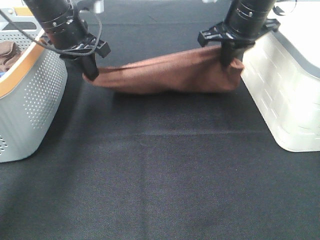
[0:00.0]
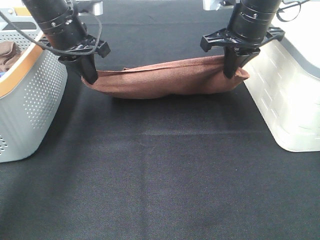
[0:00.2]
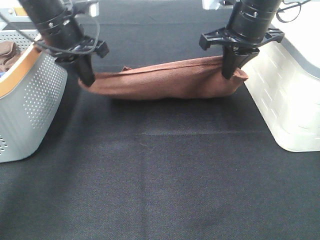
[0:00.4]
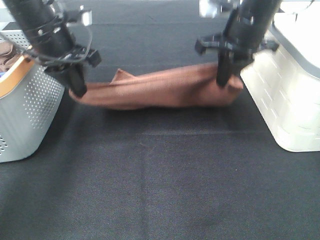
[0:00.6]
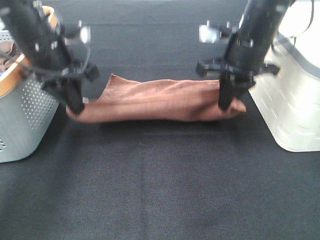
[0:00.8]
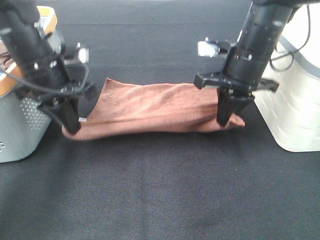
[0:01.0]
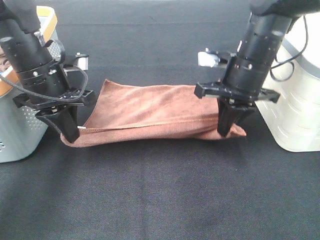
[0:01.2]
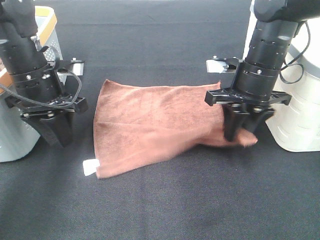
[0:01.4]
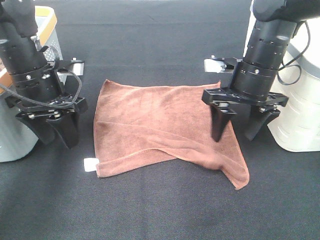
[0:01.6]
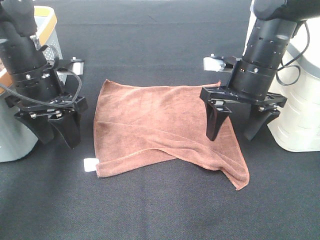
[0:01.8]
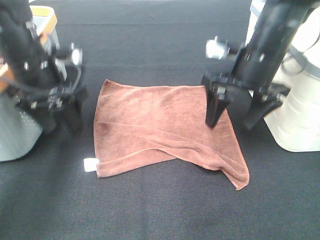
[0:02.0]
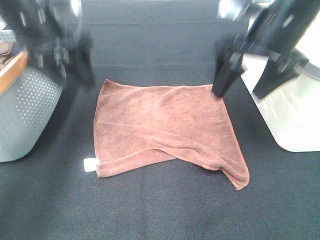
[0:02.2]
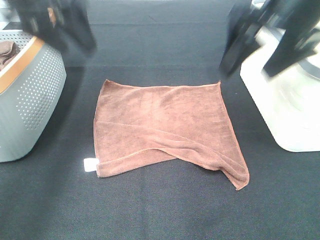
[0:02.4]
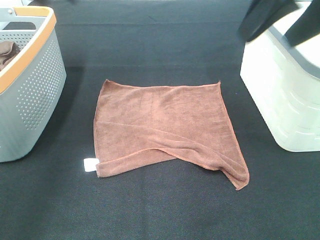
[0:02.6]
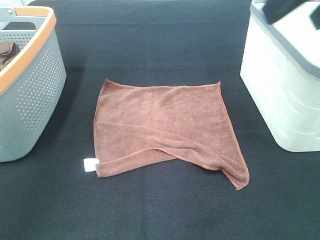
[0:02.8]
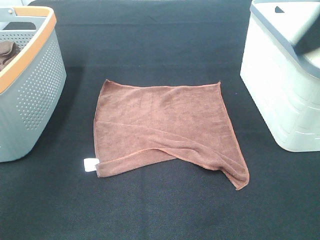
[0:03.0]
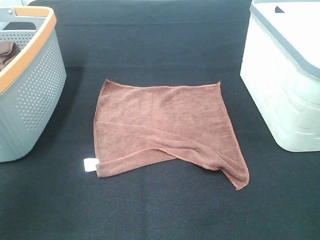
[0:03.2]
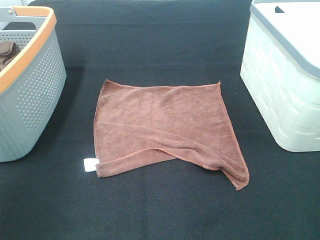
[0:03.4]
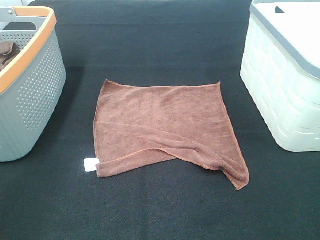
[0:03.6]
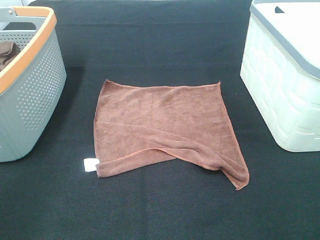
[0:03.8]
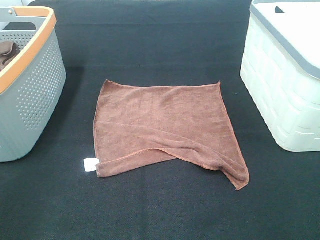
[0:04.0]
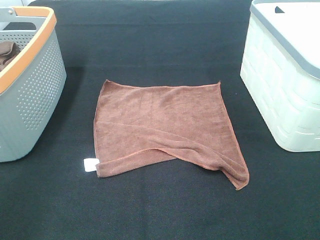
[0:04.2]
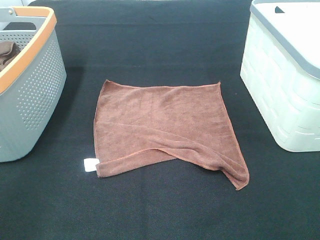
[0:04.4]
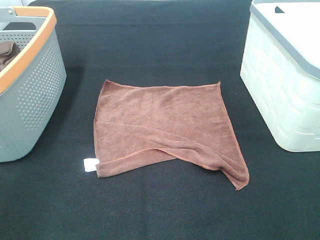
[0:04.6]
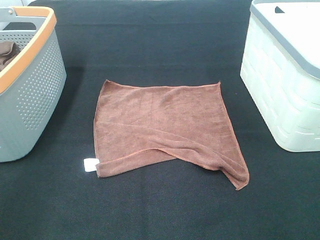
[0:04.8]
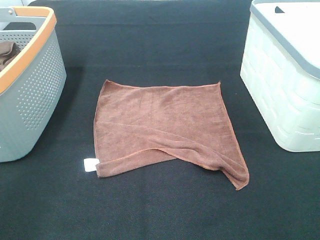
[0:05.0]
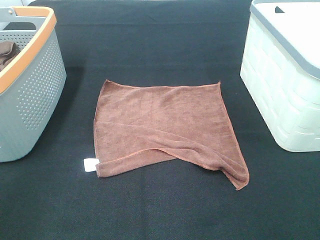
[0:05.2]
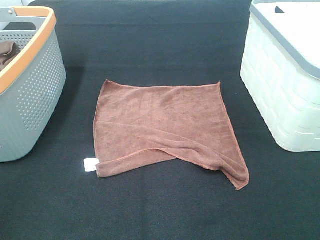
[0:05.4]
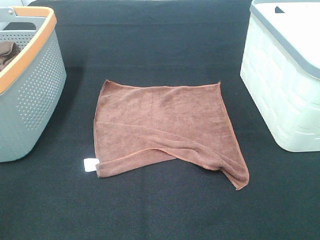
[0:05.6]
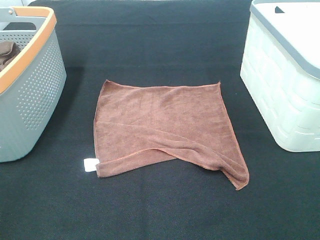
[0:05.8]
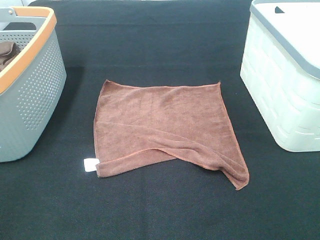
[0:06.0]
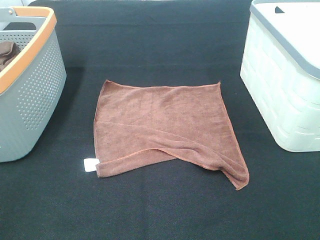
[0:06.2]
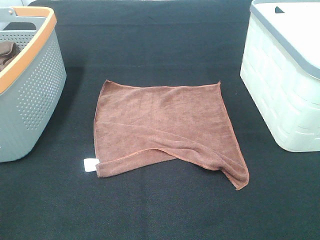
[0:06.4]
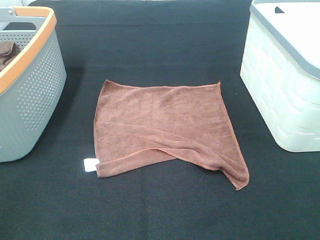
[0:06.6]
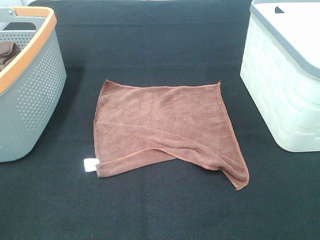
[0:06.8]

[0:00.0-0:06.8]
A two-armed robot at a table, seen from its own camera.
Task of the whole recording: Remove the towel and place it.
0:00.0 to 0:01.4: The left gripper moves backward and downward, approximately 10 cm, and opens up, while the right gripper is displaced downward and backward by roughly 10 cm, and opens up.
0:01.4 to 0:02.8: The right gripper goes about 25 cm upward and backward, and opens. Meanwhile the left gripper travels upward by approximately 25 cm, and opens up.
0:02.8 to 0:04.0: The right gripper travels backward, downward and to the right by approximately 20 cm.

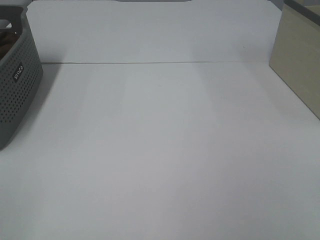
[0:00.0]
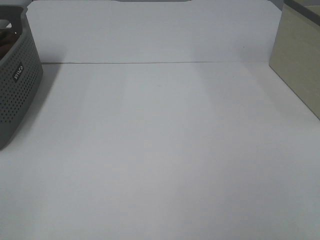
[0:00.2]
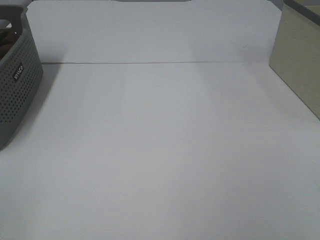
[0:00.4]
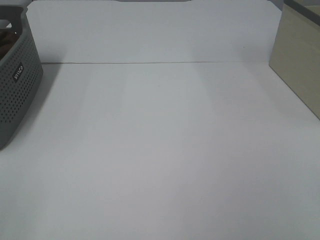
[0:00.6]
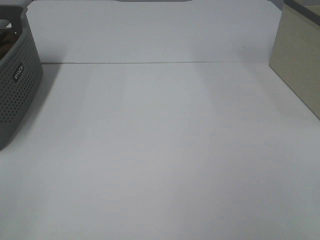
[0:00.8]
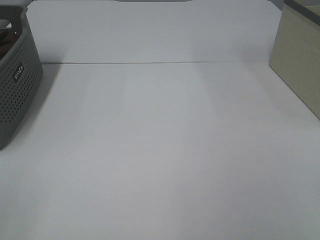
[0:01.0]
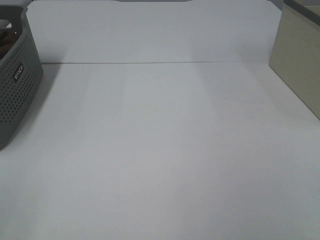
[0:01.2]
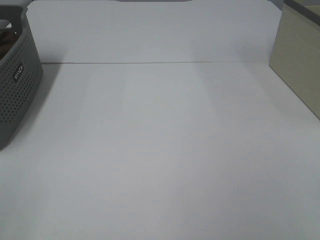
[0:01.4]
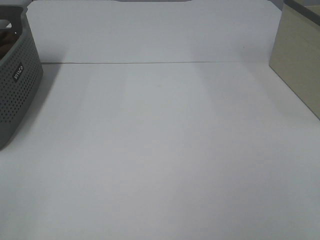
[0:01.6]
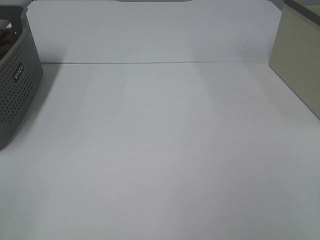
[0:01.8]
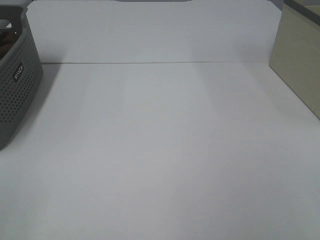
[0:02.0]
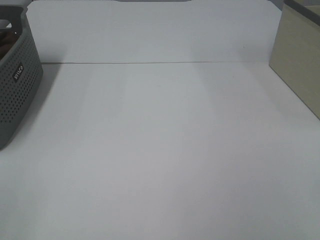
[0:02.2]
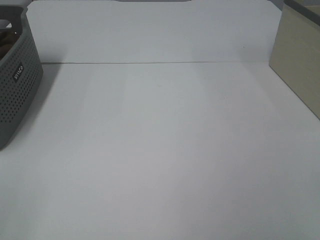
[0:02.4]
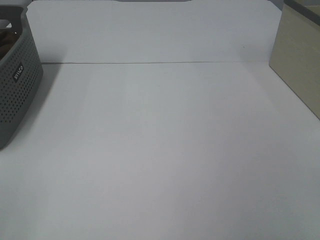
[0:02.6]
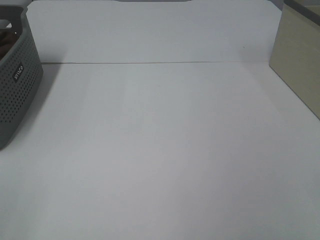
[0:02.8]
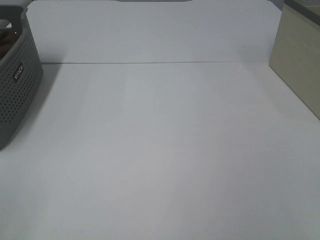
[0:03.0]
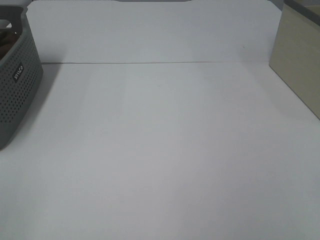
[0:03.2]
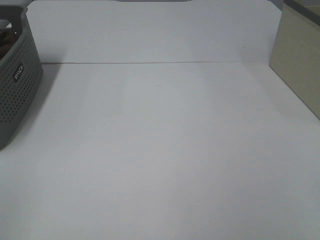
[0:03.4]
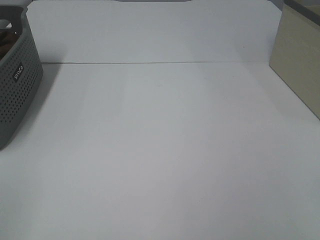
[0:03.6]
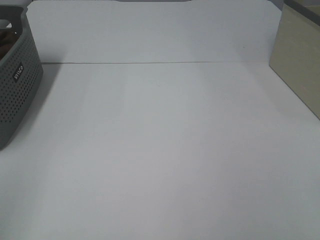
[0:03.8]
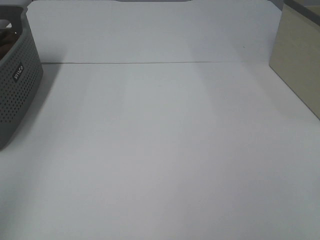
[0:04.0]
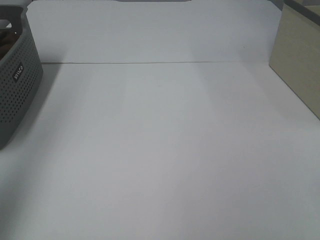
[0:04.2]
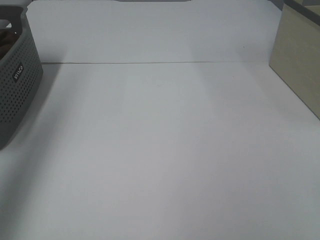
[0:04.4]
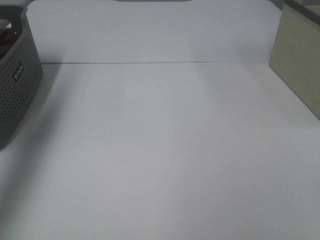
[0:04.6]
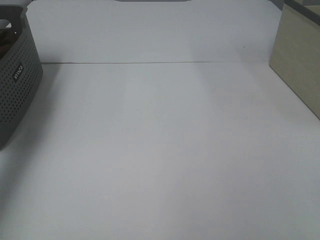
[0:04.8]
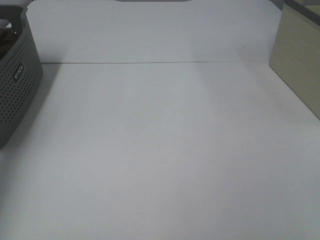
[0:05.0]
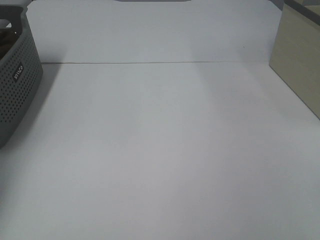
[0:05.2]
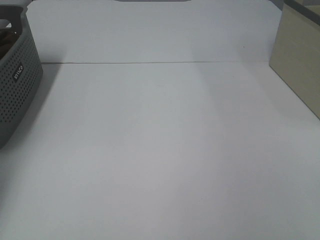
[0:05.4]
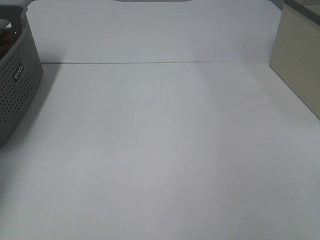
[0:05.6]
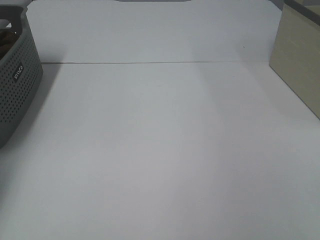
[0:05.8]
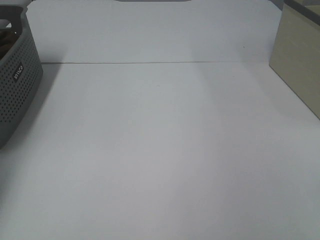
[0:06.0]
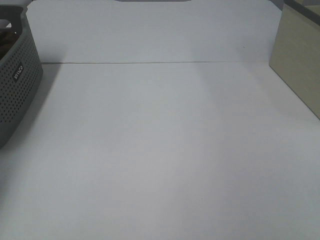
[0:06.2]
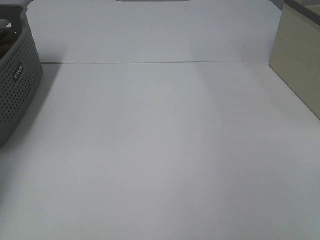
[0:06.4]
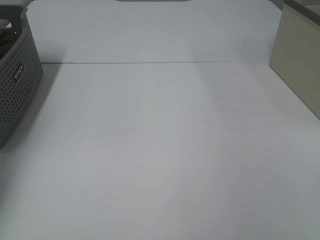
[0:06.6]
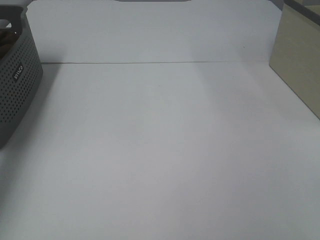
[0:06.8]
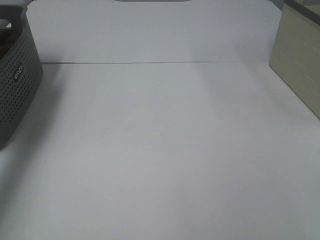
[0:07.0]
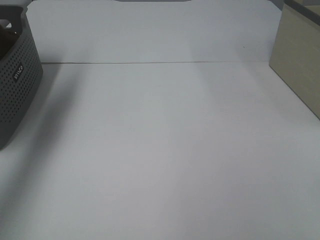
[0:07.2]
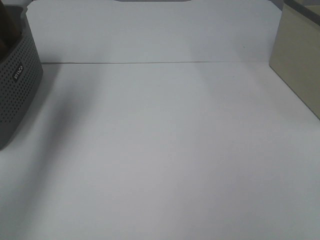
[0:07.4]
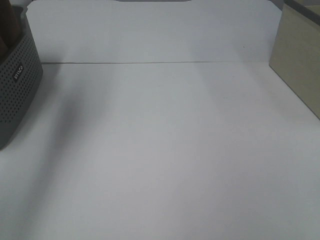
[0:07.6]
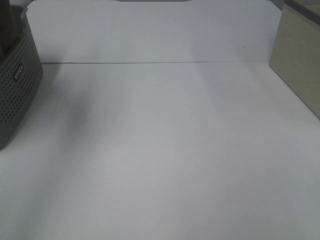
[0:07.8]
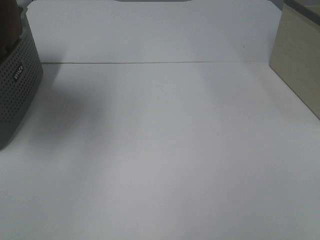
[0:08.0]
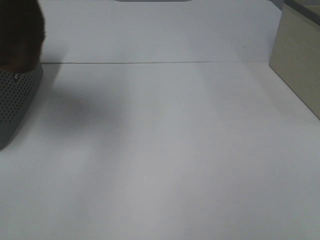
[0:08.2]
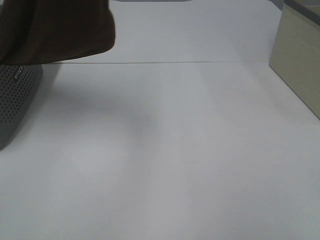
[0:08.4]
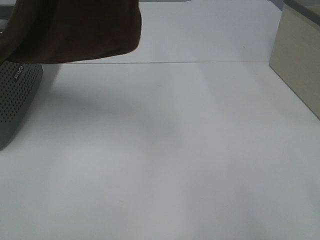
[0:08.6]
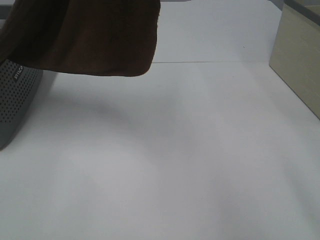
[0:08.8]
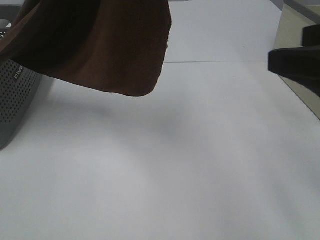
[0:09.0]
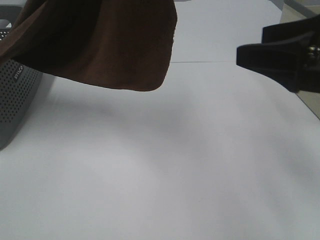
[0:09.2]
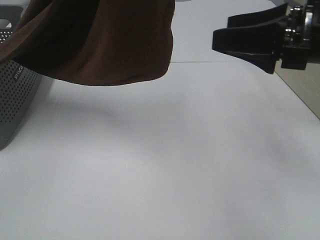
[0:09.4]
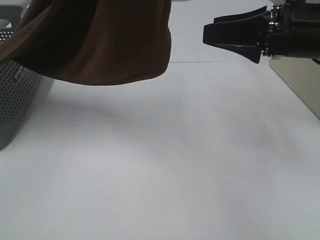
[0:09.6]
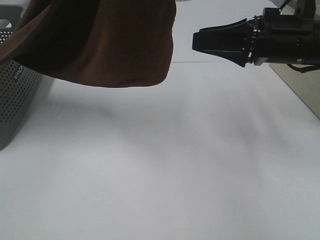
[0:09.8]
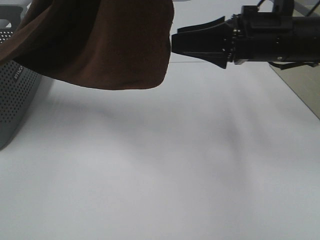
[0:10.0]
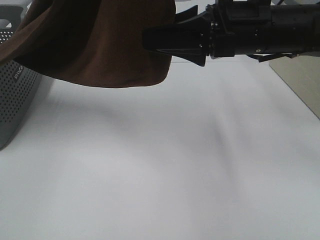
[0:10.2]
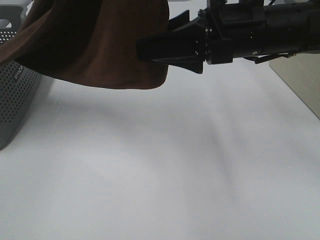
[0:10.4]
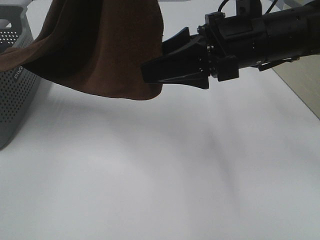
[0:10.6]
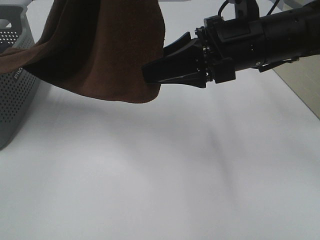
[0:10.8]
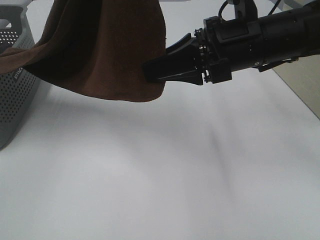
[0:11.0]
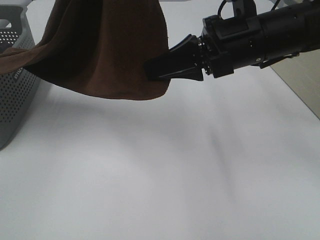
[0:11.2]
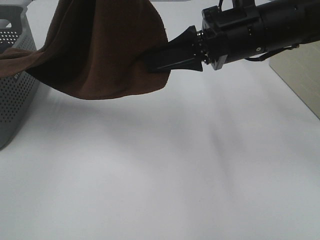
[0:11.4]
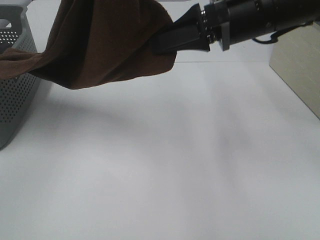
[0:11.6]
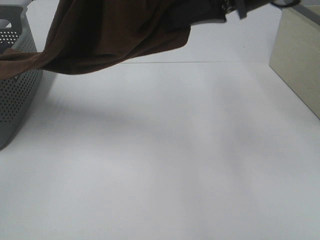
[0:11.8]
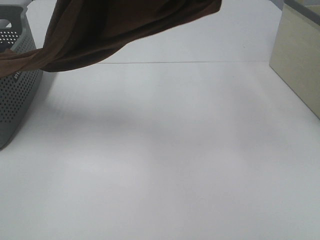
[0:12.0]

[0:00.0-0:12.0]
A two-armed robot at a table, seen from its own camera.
Task of the whole recording: Remove the towel and place it.
Step, 0:08.0 to 0:11.0: Right hand: grab a corner of the brown towel and straighten it.
0:00.0 to 0:03.0: Both grippers stay put.
0:03.0 to 0:04.4: The left gripper heads forward and upward, covering about 30 cm.
0:04.4 to 0:06.0: The left gripper travels downward, forward and to the left by roughly 35 cm, and closes up.
0:06.0 to 0:07.6: The left gripper travels upward, to the right and backward by some 30 cm.
0:07.6 to 0:09.0: The left gripper goes approximately 20 cm to the right and backward. The right gripper moves forward, roughly 15 cm.
0:09.0 to 0:10.4: The right gripper heads forward and to the left, covering about 20 cm.
0:10.4 to 0:12.0: The right gripper moves upward, some 15 cm, and closes.

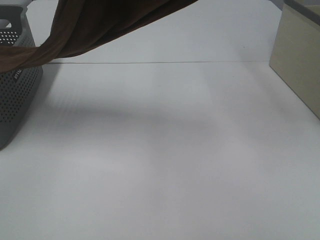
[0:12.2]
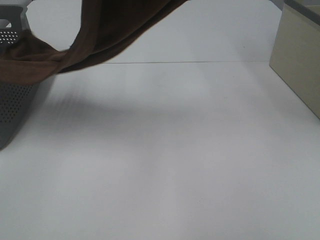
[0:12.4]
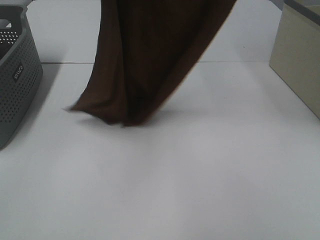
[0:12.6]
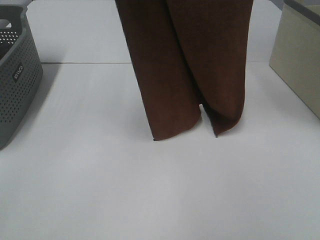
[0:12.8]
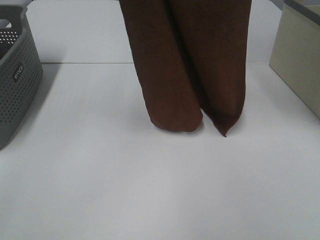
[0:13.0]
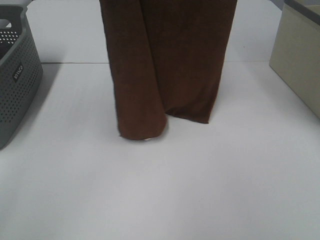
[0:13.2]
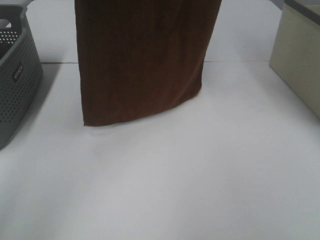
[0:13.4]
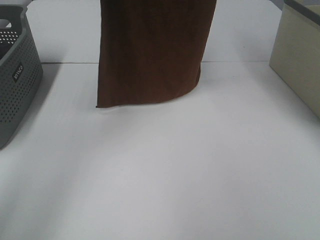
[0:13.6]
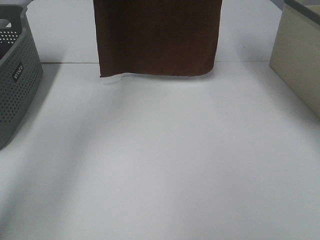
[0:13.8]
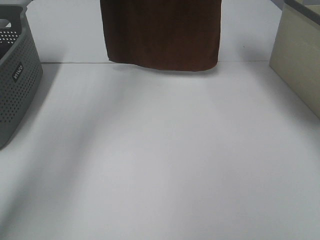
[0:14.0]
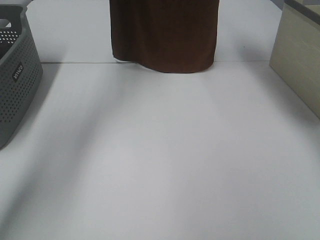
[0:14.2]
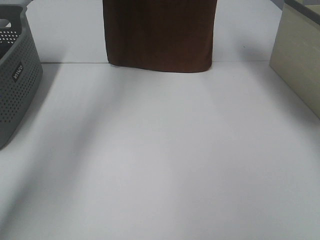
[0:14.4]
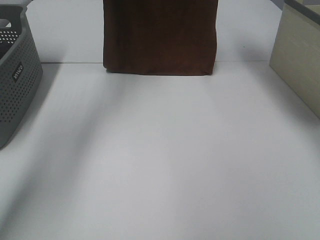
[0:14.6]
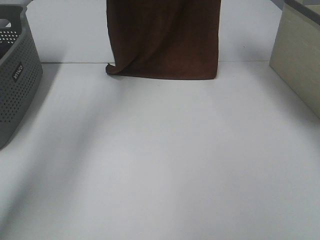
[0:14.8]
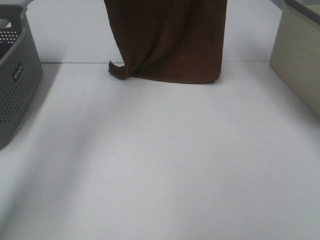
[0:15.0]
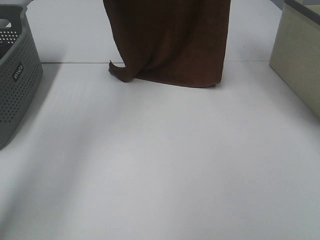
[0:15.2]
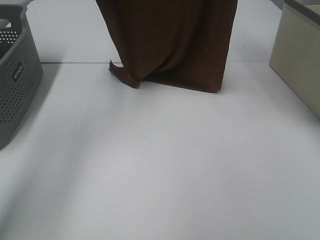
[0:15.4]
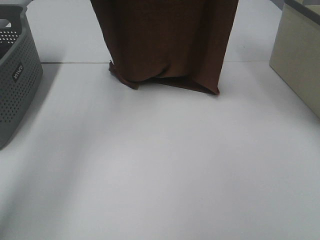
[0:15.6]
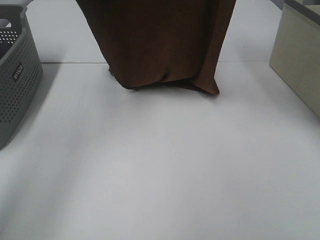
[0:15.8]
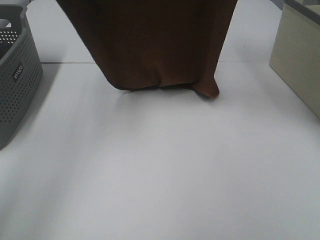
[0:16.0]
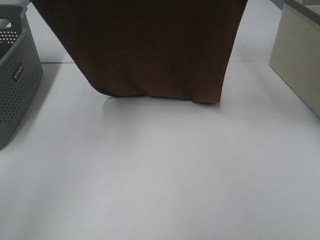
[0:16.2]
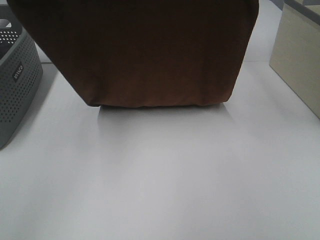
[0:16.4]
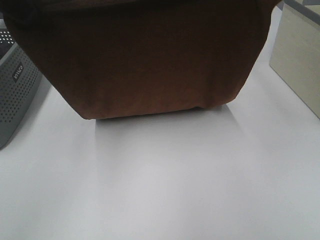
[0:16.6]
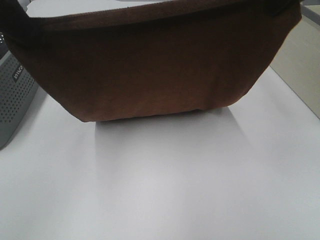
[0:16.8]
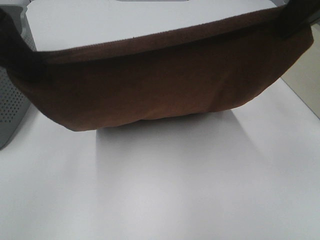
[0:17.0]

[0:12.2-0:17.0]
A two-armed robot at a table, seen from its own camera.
Task of the whole recording: Remove the towel and place it.
Step, 0:12.2 to 0:16.4: Left hand: spread the brown towel flat on the table.
Step, 0:12.2 to 0:16.4: Right hand: spread the brown towel flat on the table.
0:12.2 to 0:13.8: The left gripper heads forward, covering approximately 20 cm, while the right gripper goes approximately 15 cm forward and upward.
0:13.8 to 0:15.4: The left gripper moves about 5 cm forward and comes back.
0:15.4 to 0:17.0: Both grippers travel together backward and downward, roughly 20 cm.
